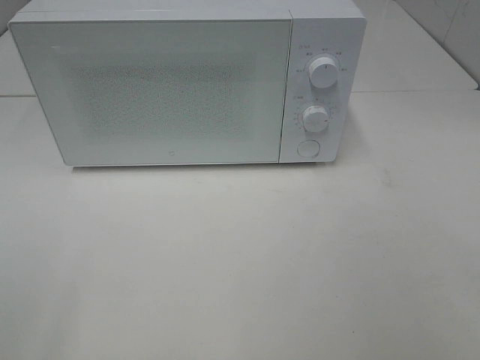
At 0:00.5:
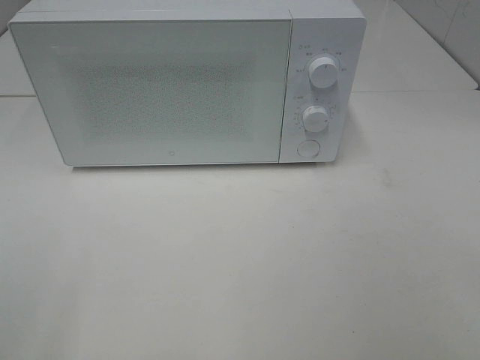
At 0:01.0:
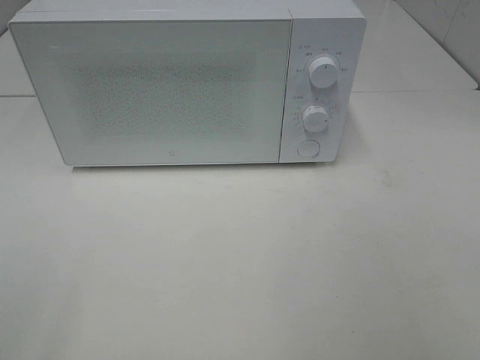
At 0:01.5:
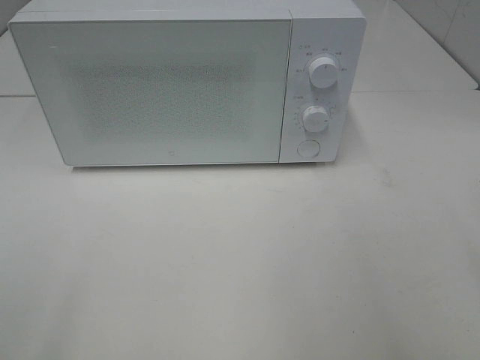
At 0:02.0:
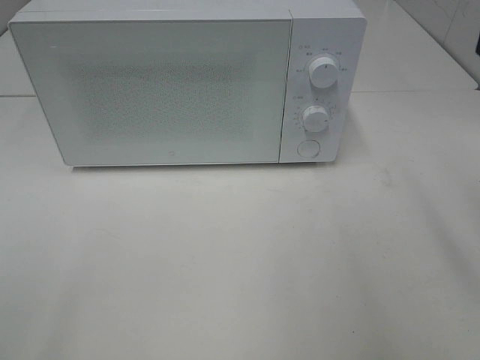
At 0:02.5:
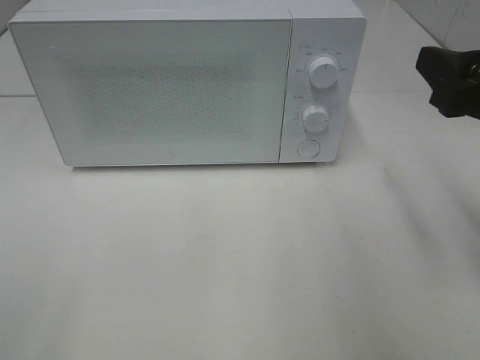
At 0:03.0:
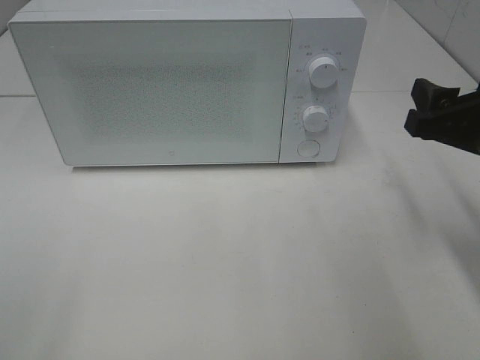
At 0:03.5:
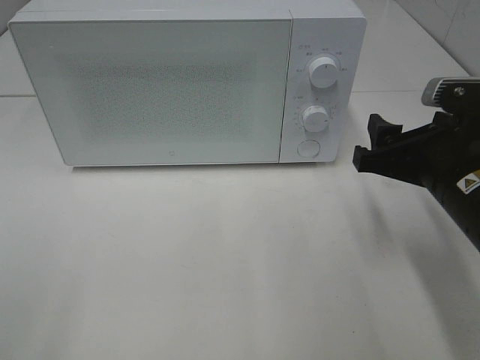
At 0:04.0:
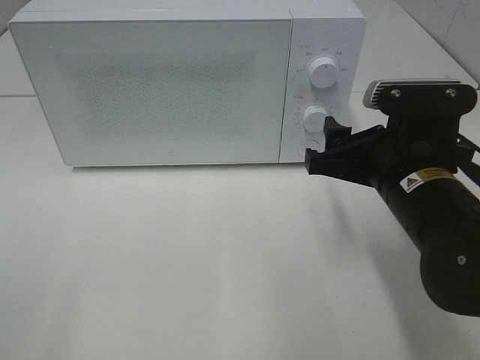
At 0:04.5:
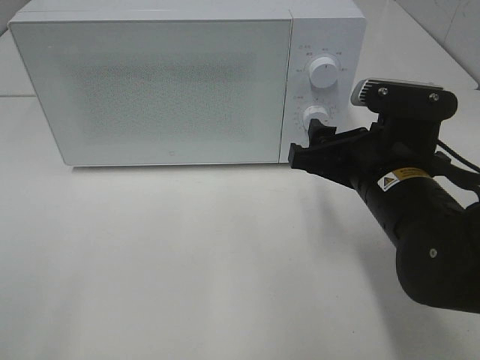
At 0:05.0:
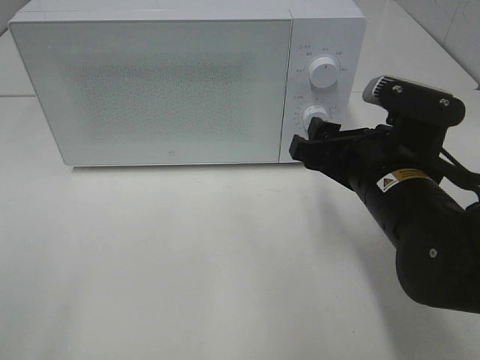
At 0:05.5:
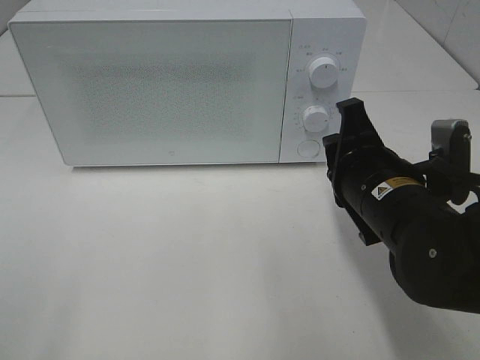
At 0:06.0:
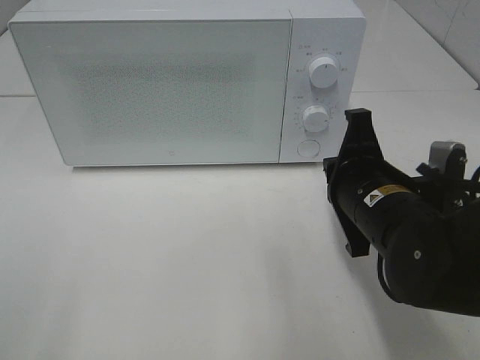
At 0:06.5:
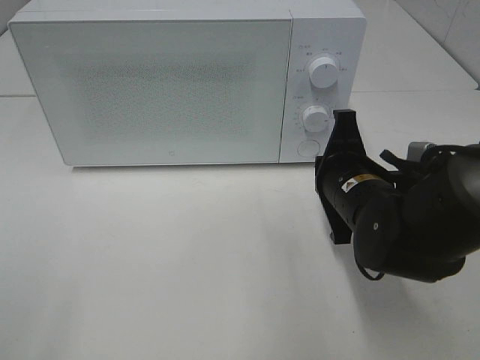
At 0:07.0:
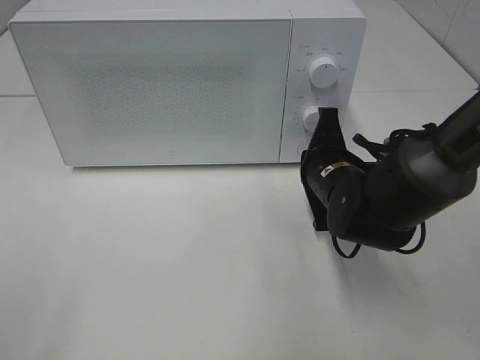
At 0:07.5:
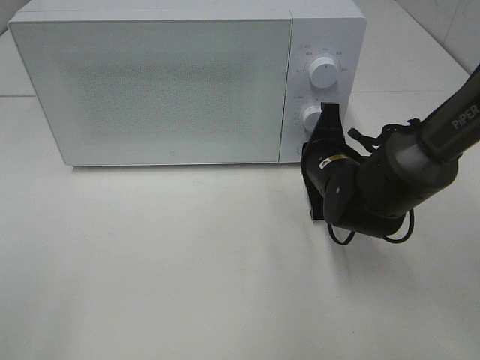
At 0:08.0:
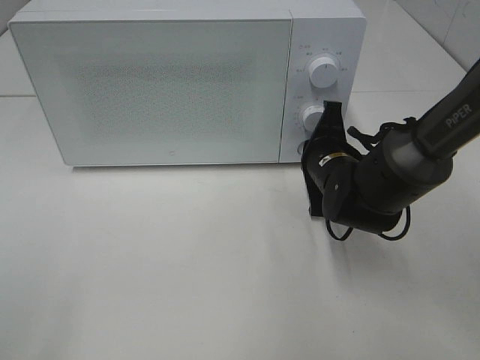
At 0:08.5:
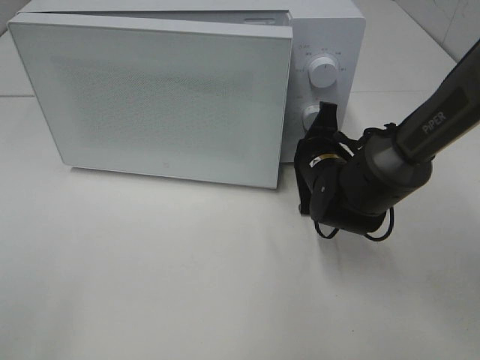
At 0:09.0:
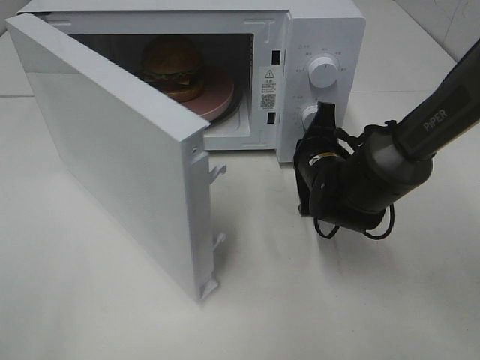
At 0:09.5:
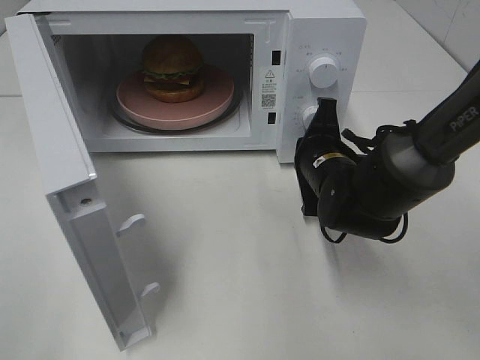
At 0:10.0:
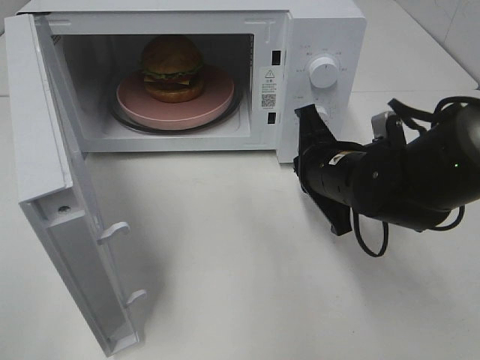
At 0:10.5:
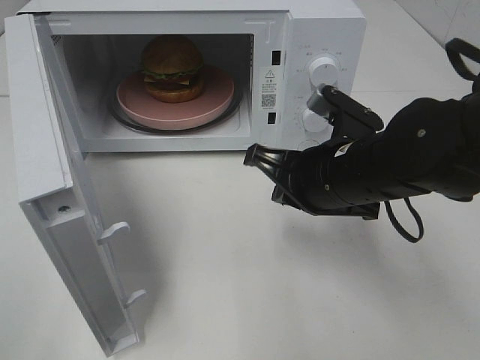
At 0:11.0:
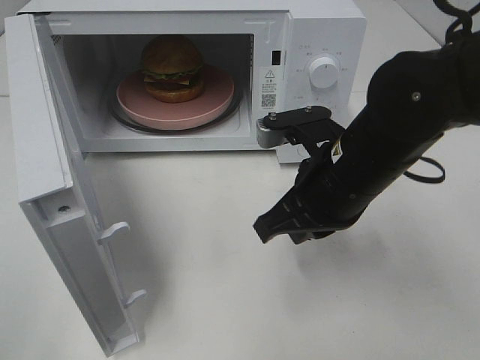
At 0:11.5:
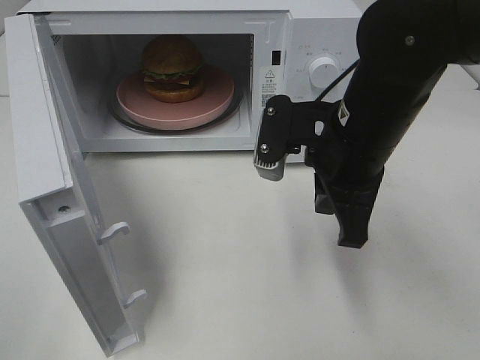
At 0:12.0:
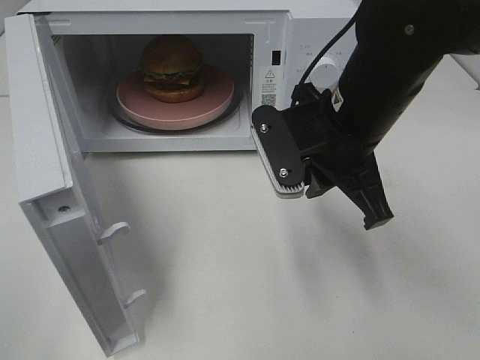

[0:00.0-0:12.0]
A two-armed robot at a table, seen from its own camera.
Task of the whole recording: Heat the burger.
Step, 0:00.0 to 0:09.0: Right hand: press the switch.
0:02.0 to 0:04.0: The right gripper goes roughly 20 cm downward, to the left and forward.
0:04.0 to 0:06.0: The right gripper closes up.
0:06.0 to 0:08.0: The right gripper goes roughly 10 cm forward and downward.
0:08.0 to 0:10.0: The right gripper is displaced backward by about 5 cm.
0:10.0 to 0:12.0: The right gripper heads upward, covering about 10 cm.

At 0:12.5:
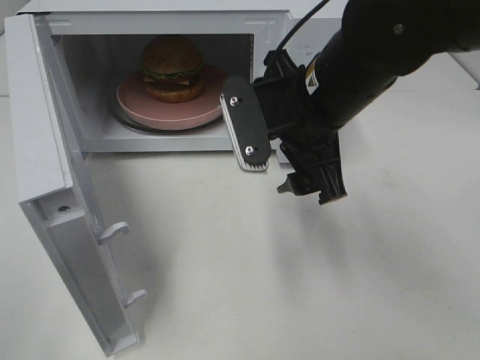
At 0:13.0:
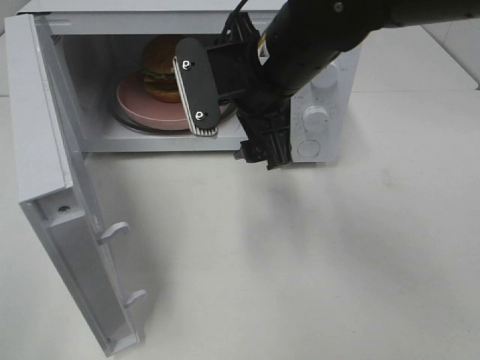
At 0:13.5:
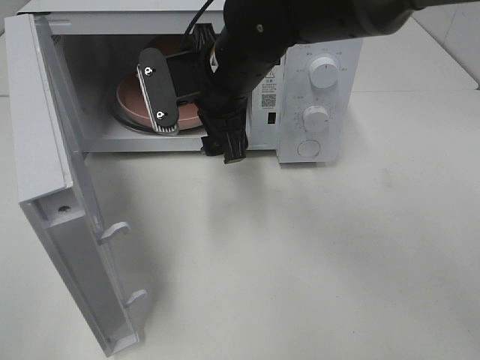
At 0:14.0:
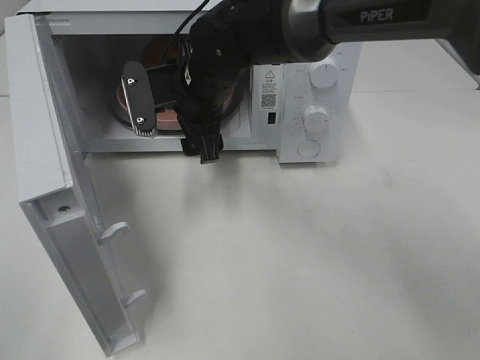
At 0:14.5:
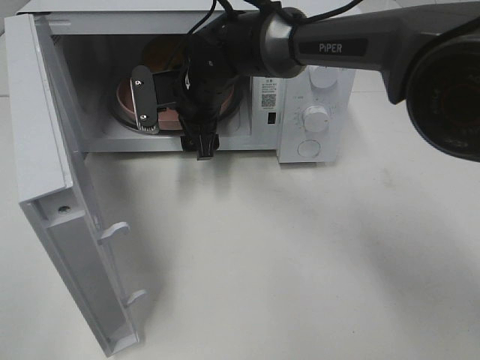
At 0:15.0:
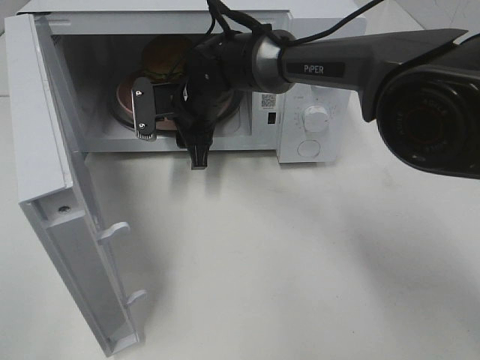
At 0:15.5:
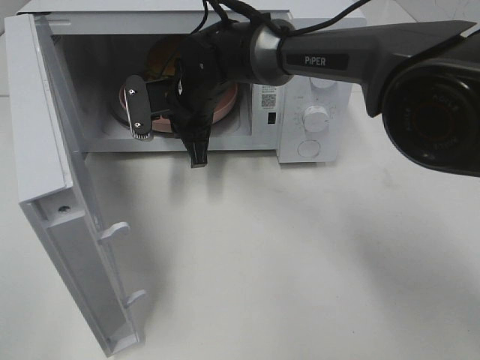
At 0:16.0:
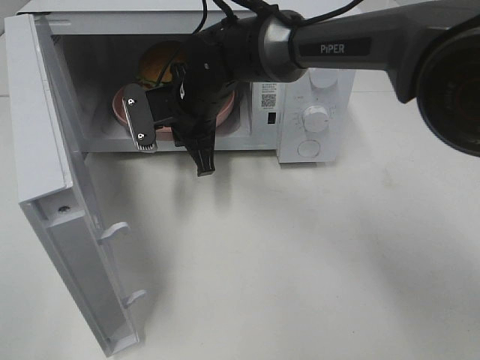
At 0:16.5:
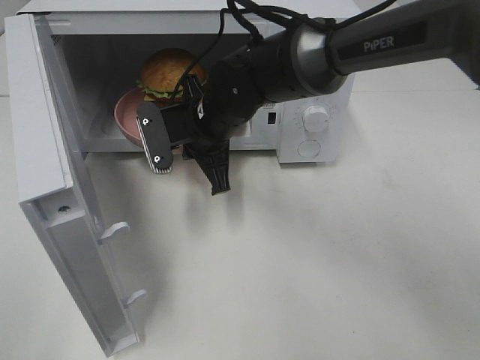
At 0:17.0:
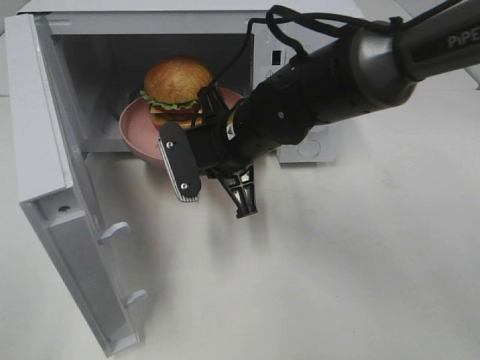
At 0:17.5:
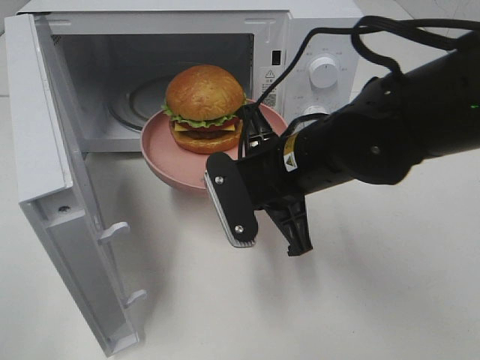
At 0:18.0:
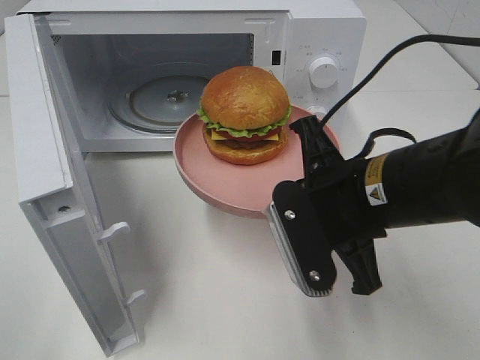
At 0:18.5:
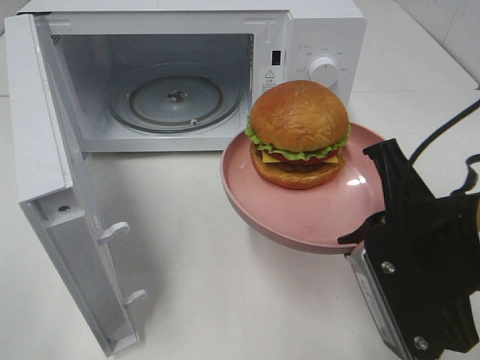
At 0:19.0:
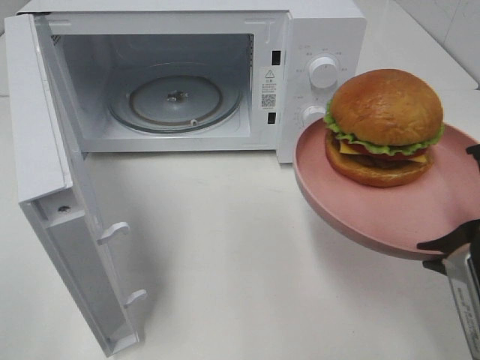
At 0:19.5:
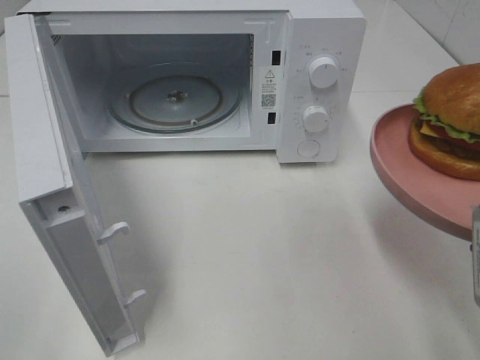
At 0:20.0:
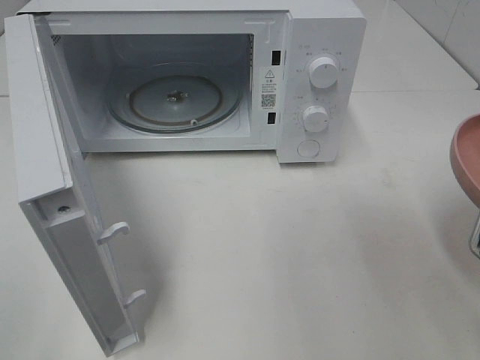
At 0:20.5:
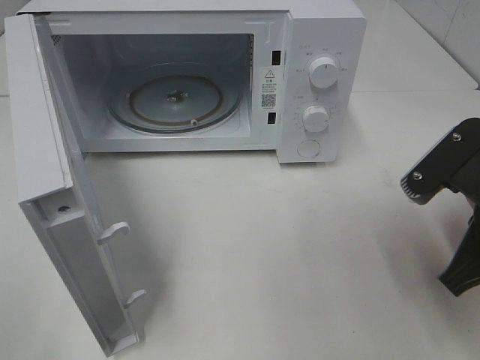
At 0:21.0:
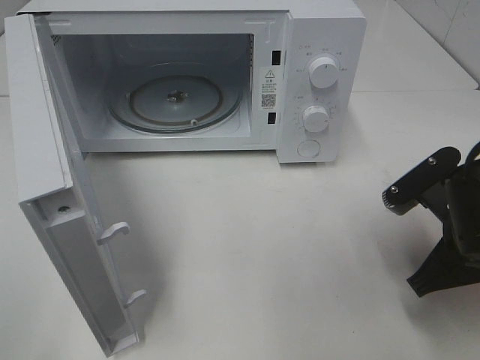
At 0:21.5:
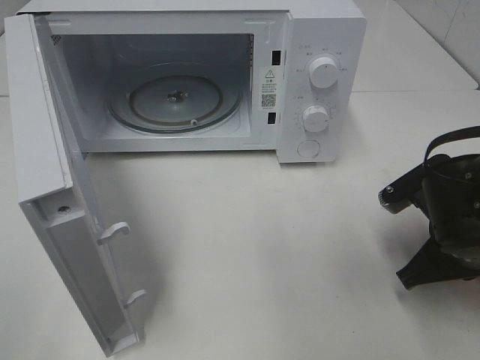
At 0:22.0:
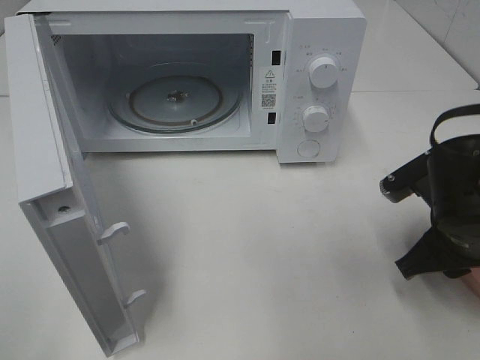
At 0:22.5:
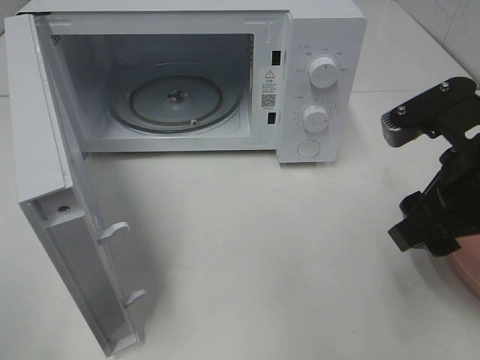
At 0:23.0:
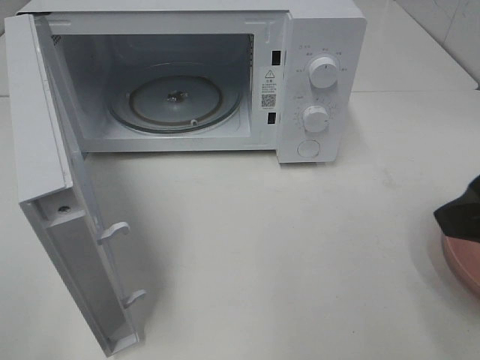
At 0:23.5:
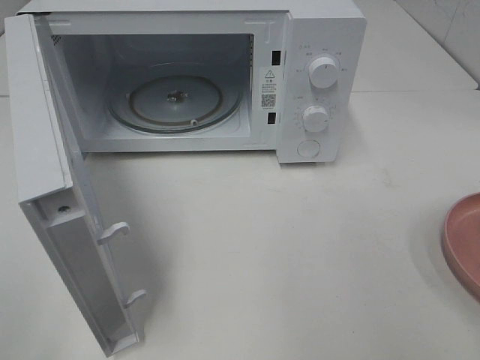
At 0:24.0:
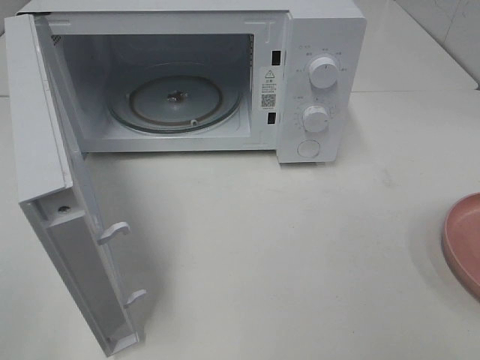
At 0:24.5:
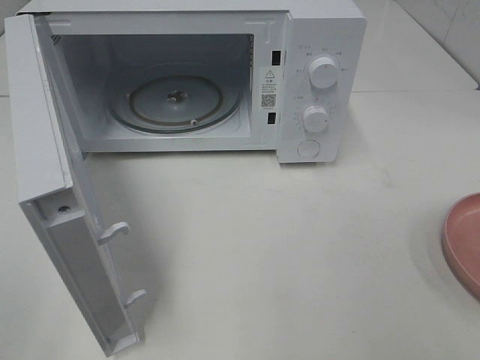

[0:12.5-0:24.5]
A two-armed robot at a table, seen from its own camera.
Task of the whole recording: Heat the burger.
Step, 0:12.5 to 0:15.0: Right hand: grab the plate with the hamburger.
Step, 0:15.5 to 0:22.0: Right hand: place the plate on the table.
0:12.5 to 0:14.5: The right gripper goes some 20 cm forward, to the left and downward.
0:14.5 to 0:16.5: The right gripper travels backward by about 5 cm, and closes its fingers.
0:16.5 to 0:18.5: The right gripper moves backward and to the right, roughly 30 cm.
0:18.5 to 0:20.5: The right gripper shifts by roughly 5 cm.
0:20.5 to 0:22.5: The right gripper moves some 10 cm downward and comes back, and opens its fingers.
0:22.5 to 0:24.5: The right gripper travels backward and to the right by approximately 20 cm.

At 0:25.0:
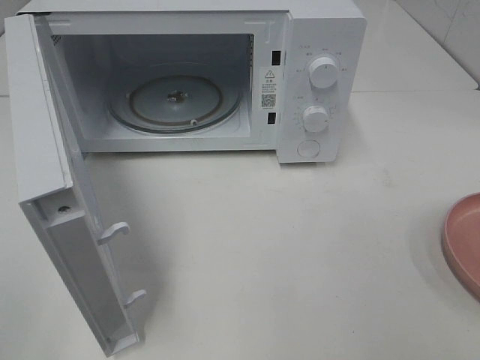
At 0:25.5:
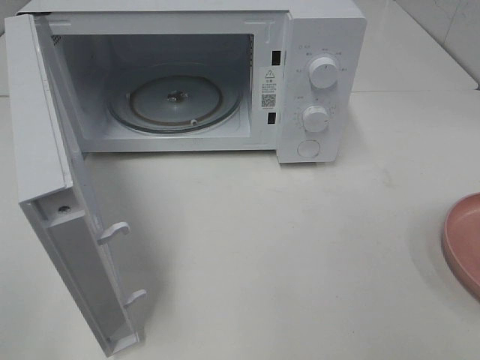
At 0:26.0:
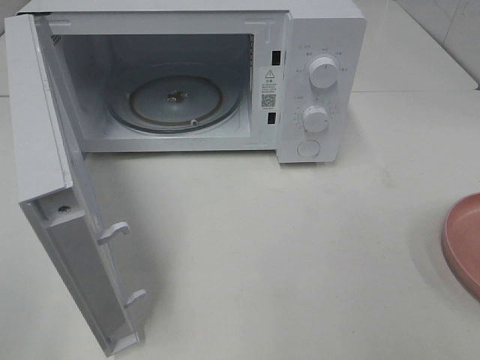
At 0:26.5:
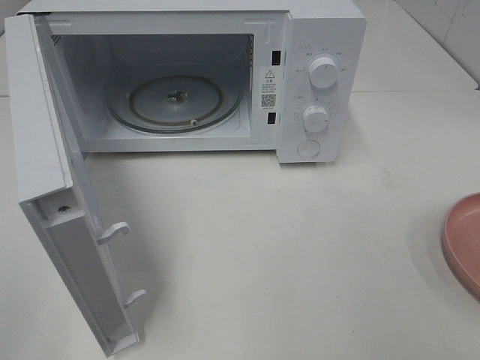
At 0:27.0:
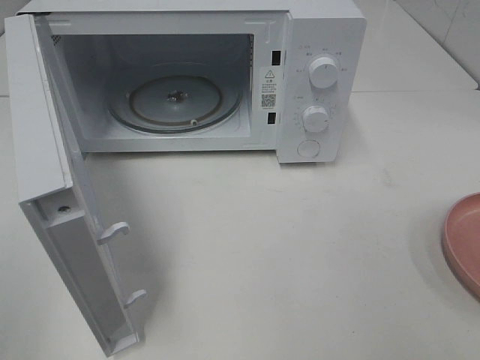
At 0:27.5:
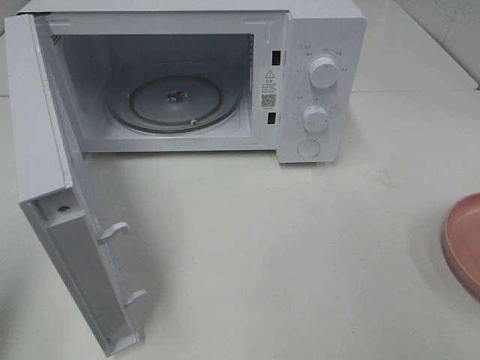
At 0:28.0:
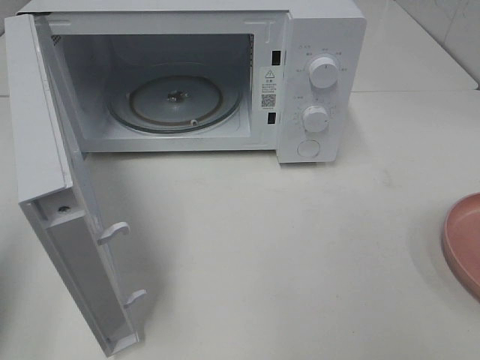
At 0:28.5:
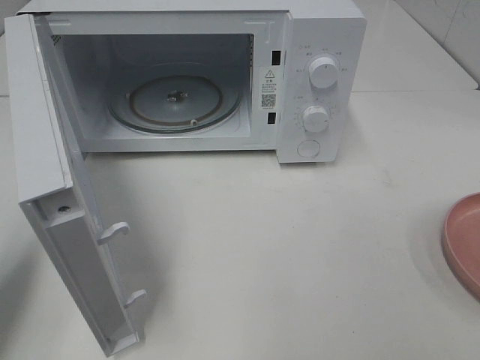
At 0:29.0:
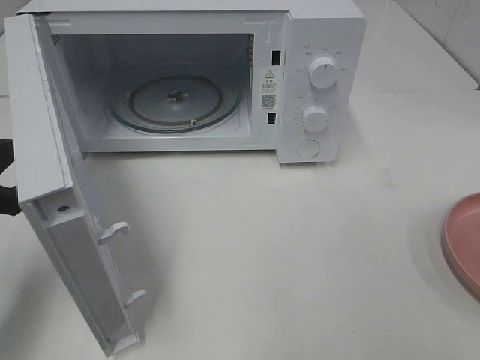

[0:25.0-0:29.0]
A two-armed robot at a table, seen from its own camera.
Task of the whole recording: Heat the burger.
0:27.0 to 0:29.0: The left gripper travels forward and downward by about 20 cm, and closes up.
